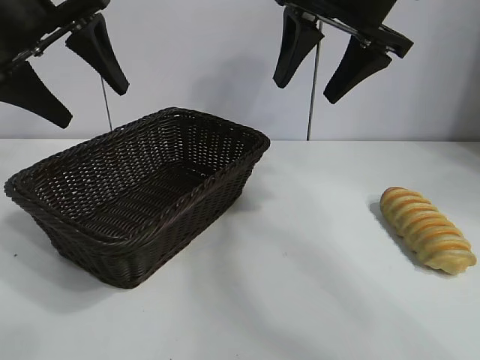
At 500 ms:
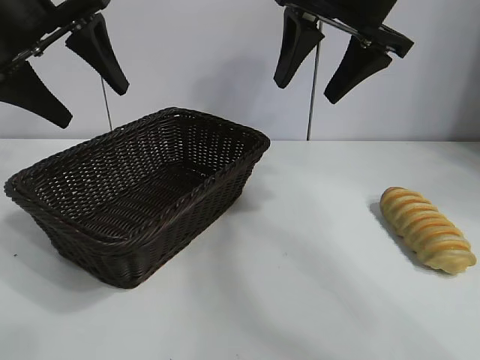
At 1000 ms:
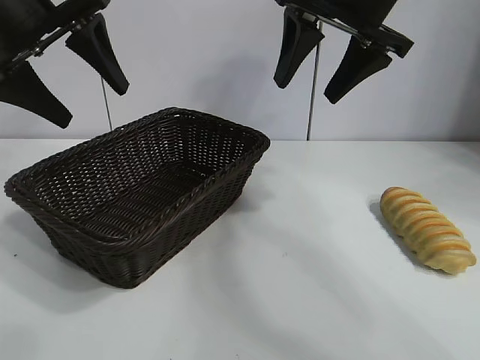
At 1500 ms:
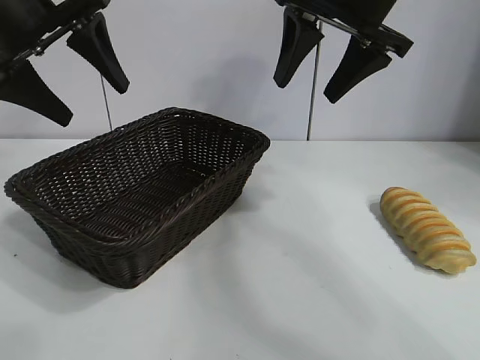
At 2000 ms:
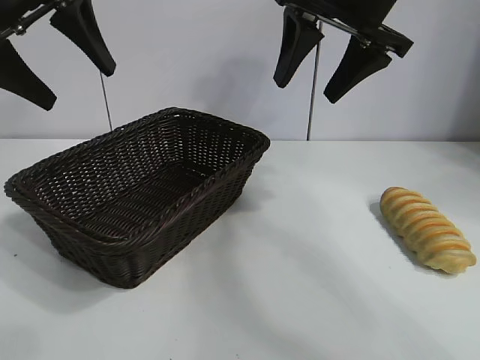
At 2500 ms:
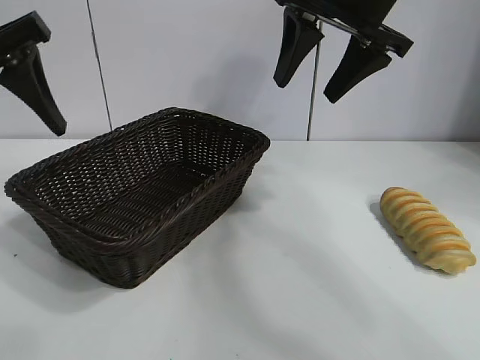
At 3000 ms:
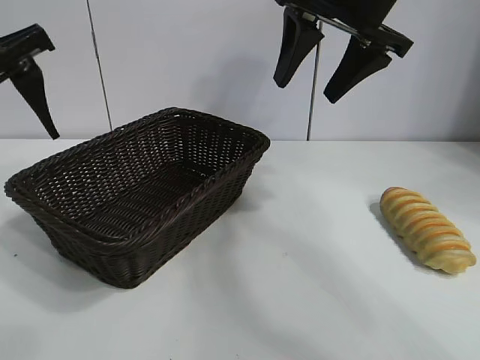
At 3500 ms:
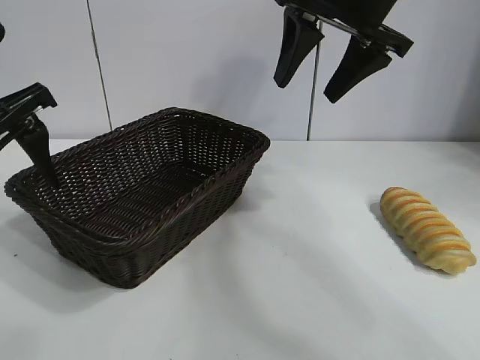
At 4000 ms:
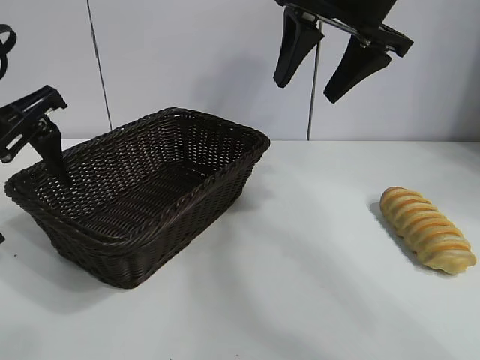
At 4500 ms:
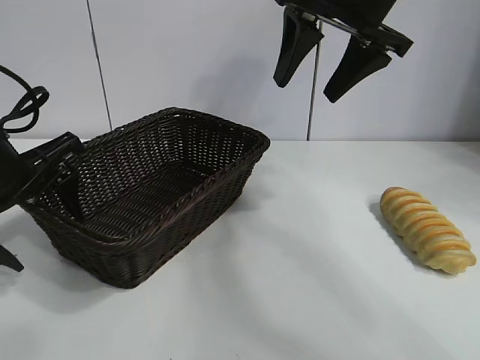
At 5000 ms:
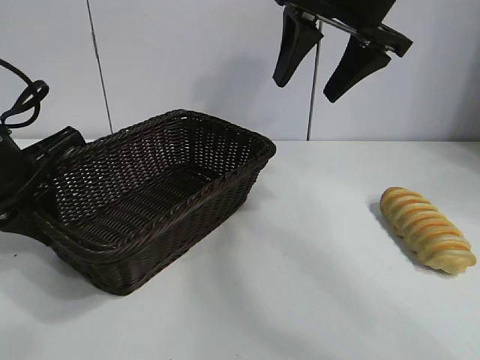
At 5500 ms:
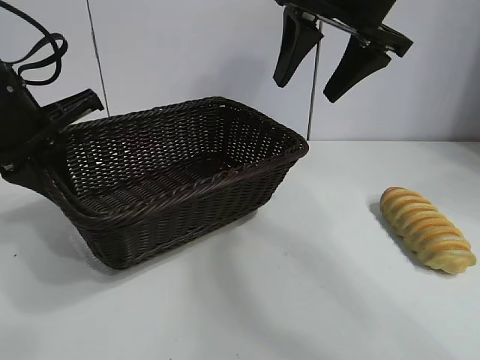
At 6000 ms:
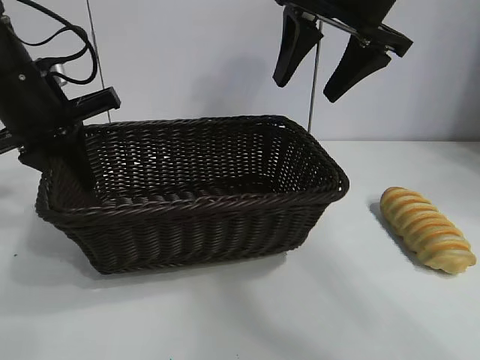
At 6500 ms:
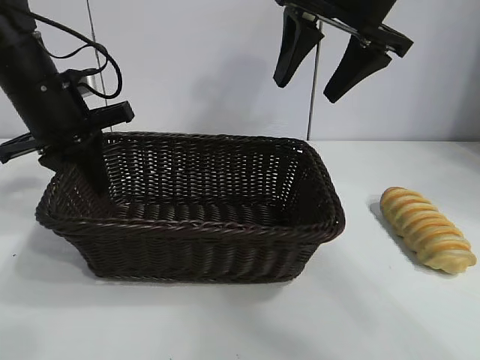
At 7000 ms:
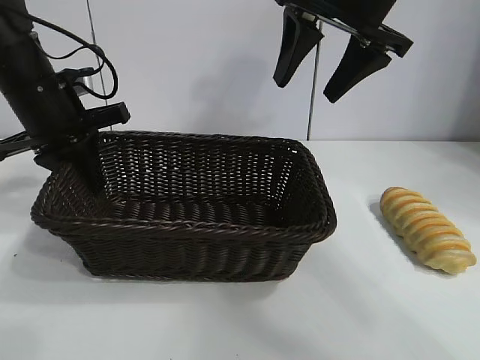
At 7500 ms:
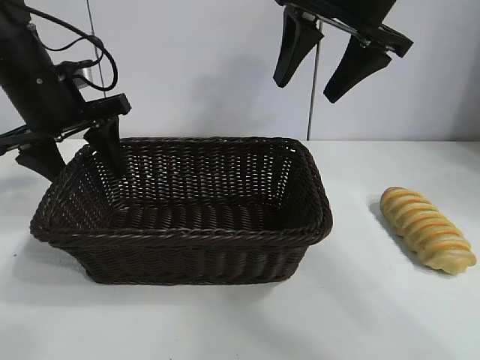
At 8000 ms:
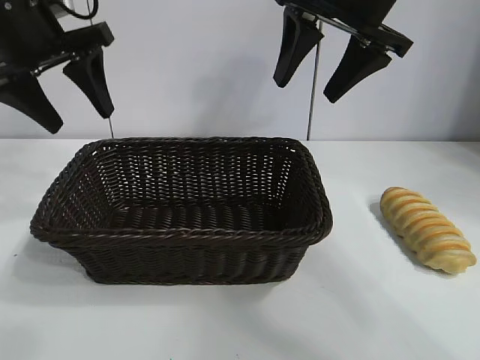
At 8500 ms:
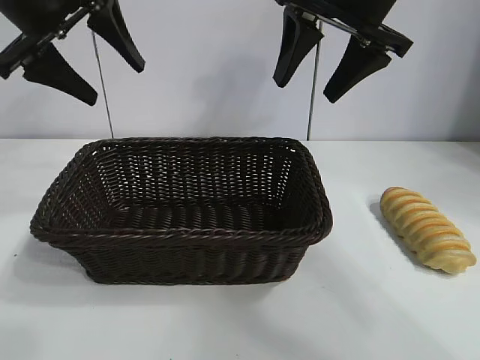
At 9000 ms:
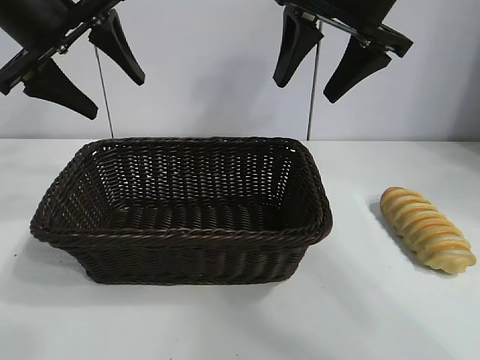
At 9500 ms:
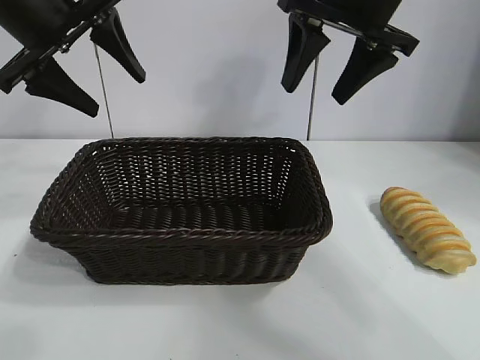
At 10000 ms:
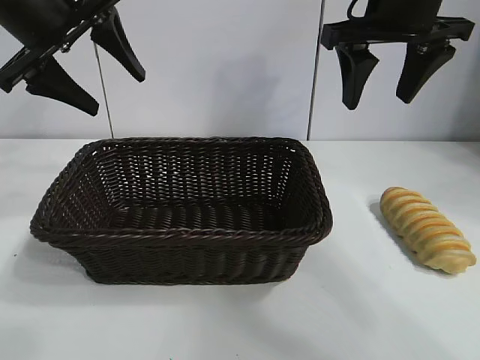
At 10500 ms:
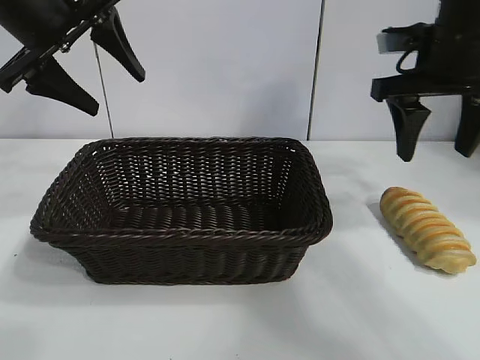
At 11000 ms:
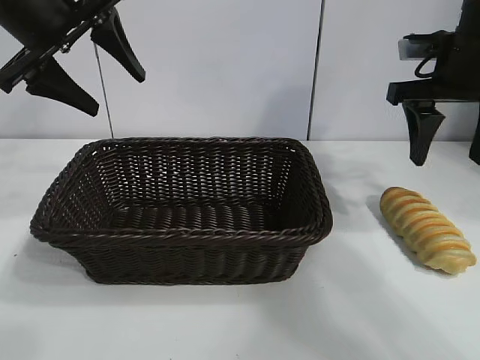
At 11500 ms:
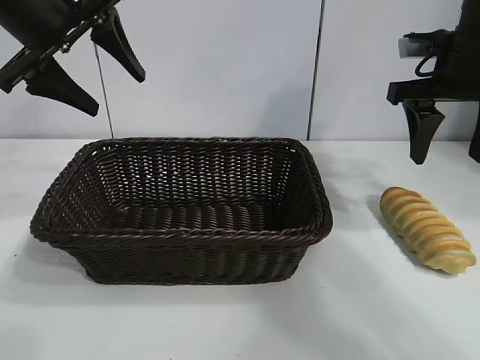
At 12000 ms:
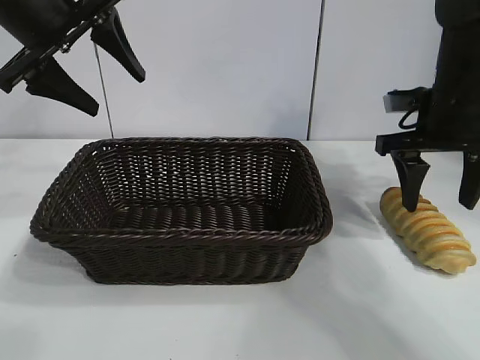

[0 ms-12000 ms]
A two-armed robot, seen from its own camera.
Task of the whole recording: pick up the long bread and put it into the basket.
Step, 2000 ms to 5000 ms: Grasp the basket with the left gripper.
Step, 5500 ms to 7000 ms: Place the basket in the center of the table with the left gripper.

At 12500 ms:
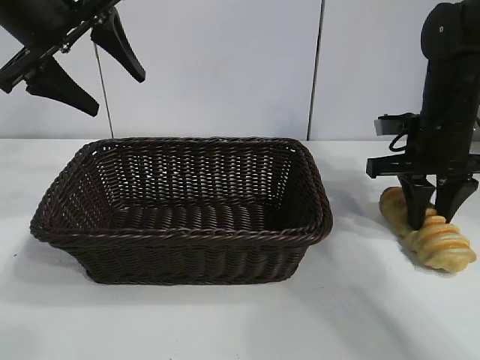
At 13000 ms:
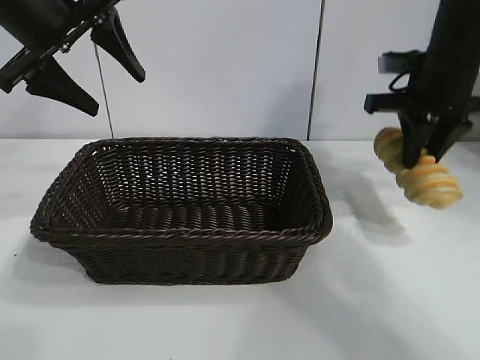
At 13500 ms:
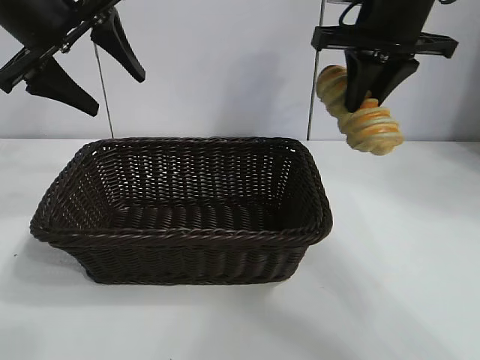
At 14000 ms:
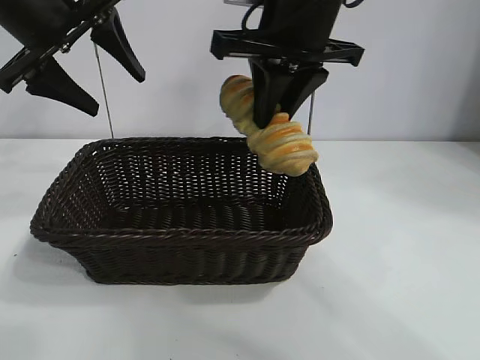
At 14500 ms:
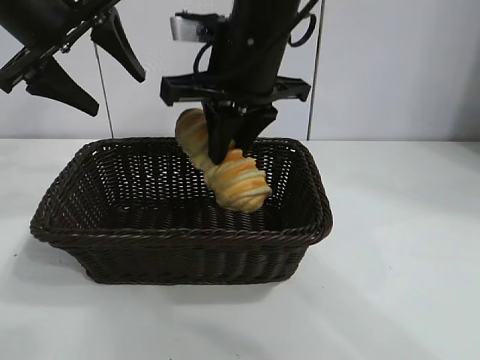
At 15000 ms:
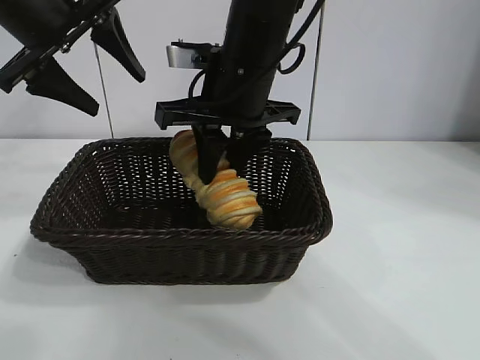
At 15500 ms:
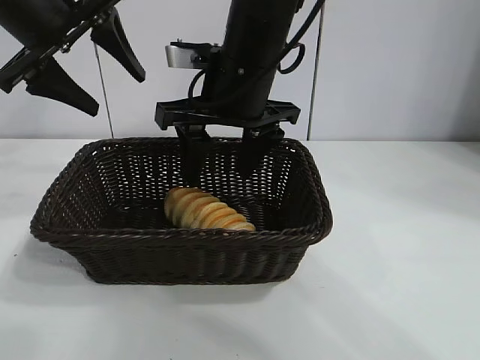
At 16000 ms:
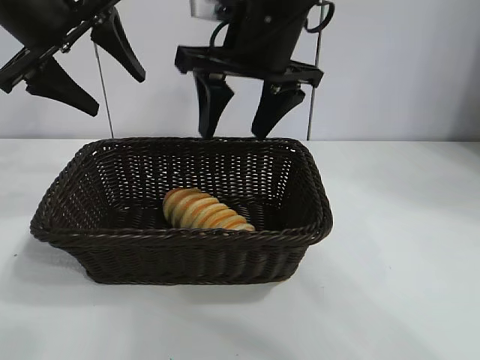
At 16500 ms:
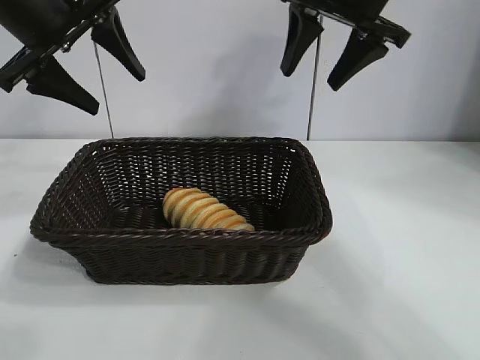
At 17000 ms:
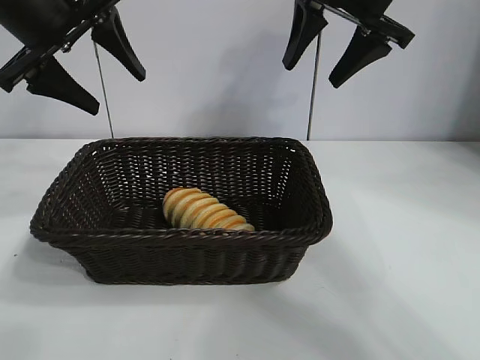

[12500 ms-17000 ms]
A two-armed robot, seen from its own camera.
Task of the whole recording: pick up the long bread and put it into the basket.
Step, 13000 ms to 15000 ms: Place the long bread in the basket with right gripper.
